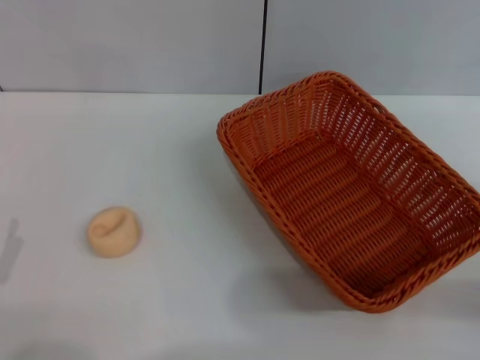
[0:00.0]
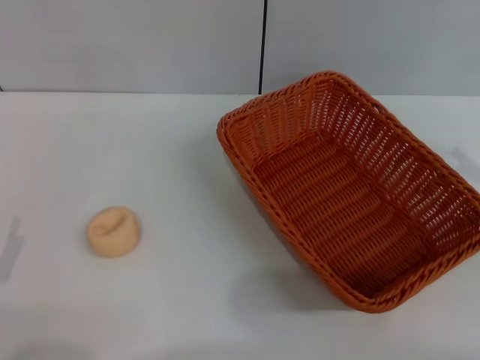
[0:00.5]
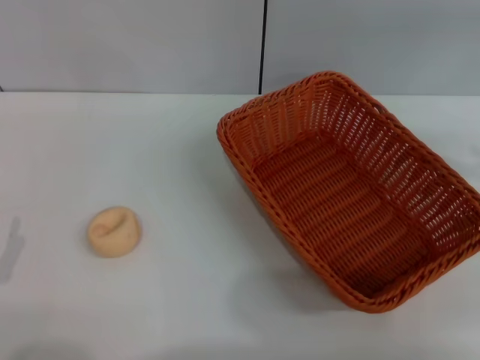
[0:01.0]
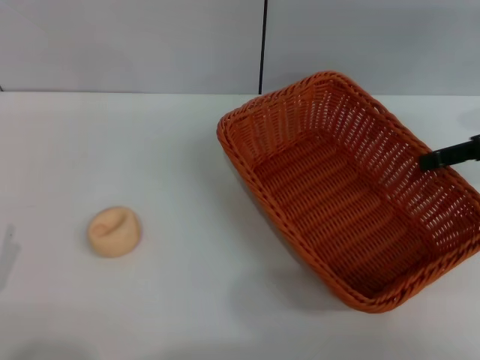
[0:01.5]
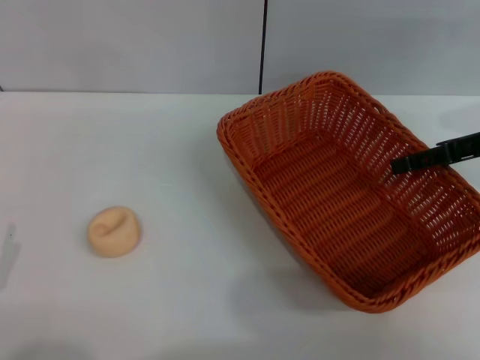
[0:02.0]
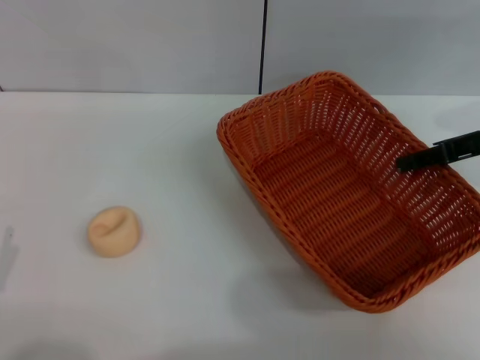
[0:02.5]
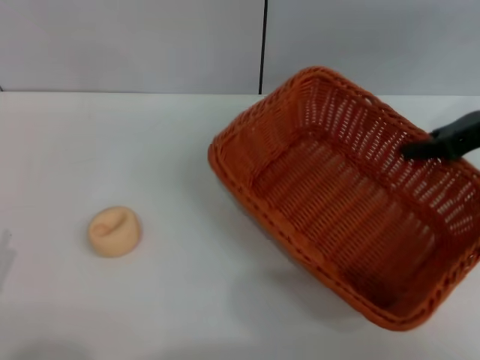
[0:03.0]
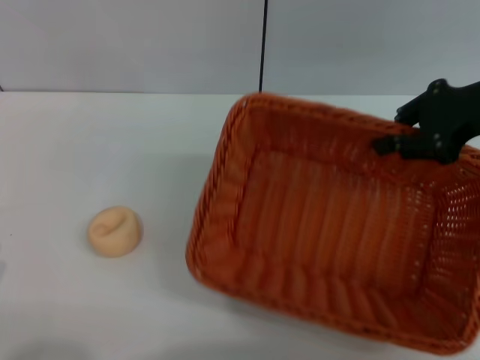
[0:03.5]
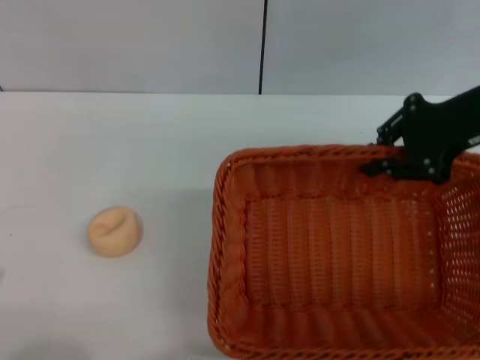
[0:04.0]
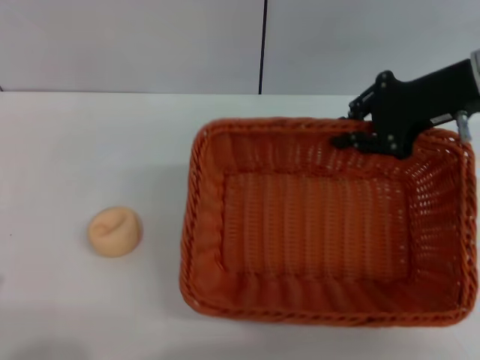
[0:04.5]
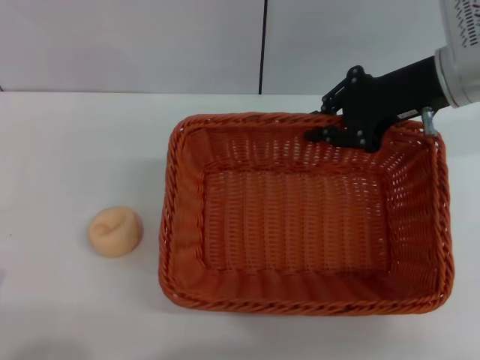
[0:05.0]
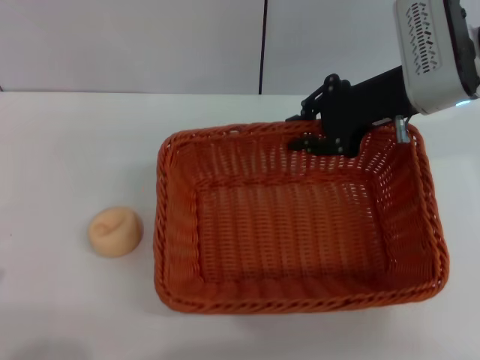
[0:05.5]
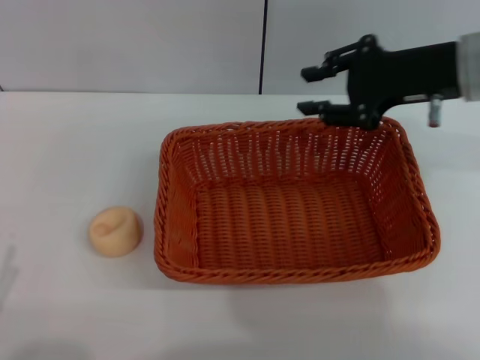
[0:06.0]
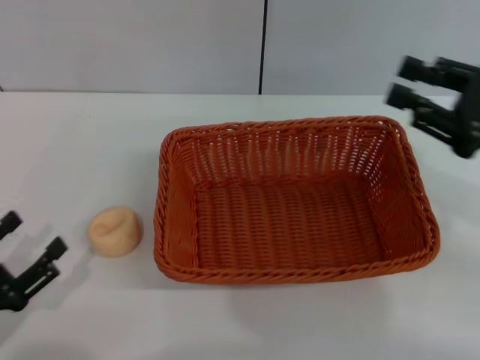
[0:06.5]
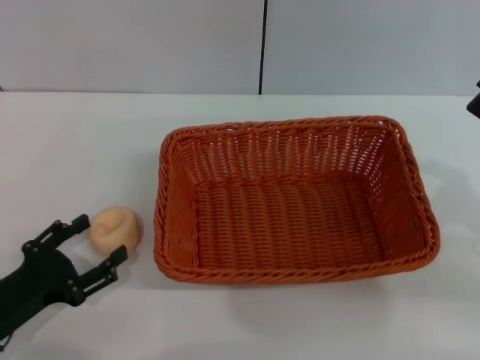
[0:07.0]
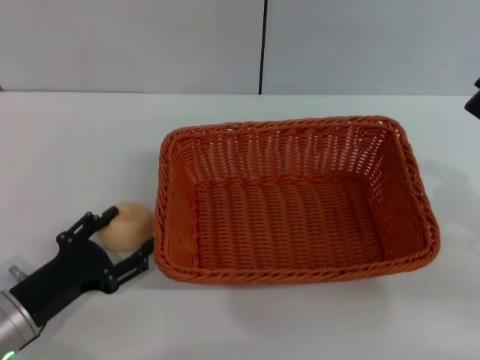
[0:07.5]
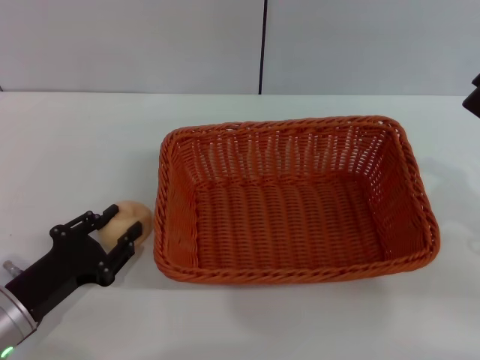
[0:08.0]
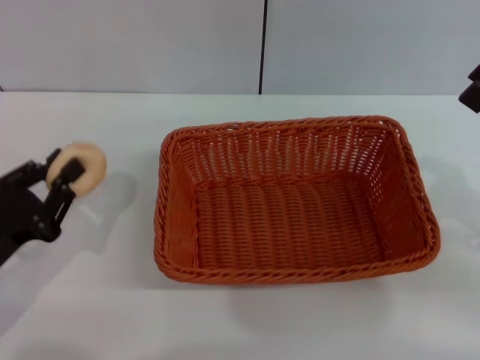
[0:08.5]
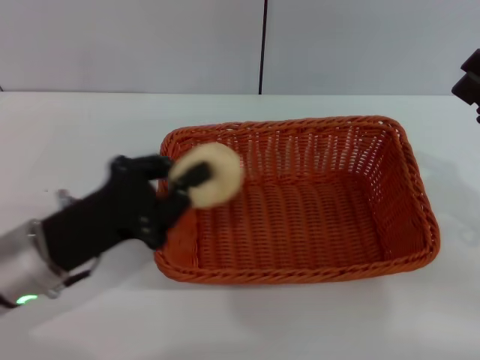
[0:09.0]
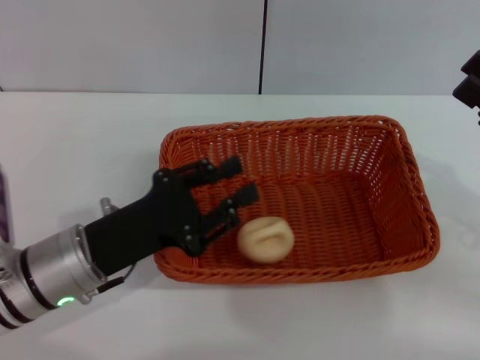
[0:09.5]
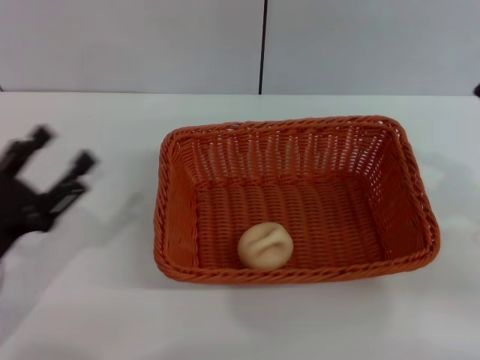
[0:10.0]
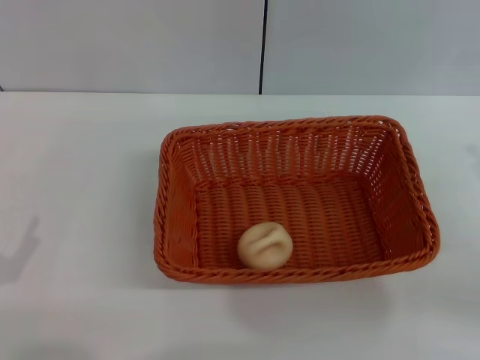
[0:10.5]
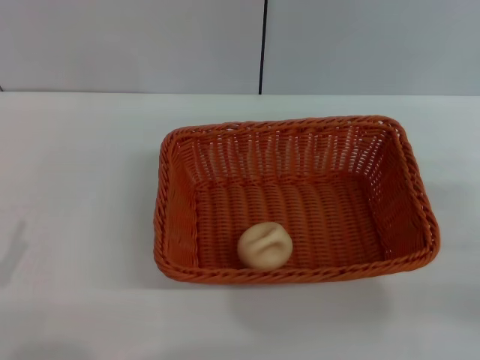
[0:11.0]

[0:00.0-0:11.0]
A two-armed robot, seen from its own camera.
Step, 0:00.0 to 0:05.5: Move the basket to the center of view with the right gripper.
Step, 0:06.0 to 0:08.5: Pick up the egg yolk pastry with the left gripper.
Step, 0:09.0 to 0:09.5: Place the egg yolk pastry into the basket with the left gripper.
0:00.0 to 0:02.0: The right gripper goes approximately 20 cm forward and upward.
0:02.0 to 0:03.5: The right gripper travels upward by roughly 5 cm, and closes.
0:03.5 to 0:05.5: The right gripper heads to the left, covering roughly 10 cm.
0:05.5 to 0:07.5: The left gripper heads forward and to the right, covering roughly 15 cm; the right gripper heads backward and to the right, covering roughly 20 cm.
0:07.5 to 0:09.0: The left gripper is displaced upward by about 5 cm, and closes its fingers.
0:09.0 to 0:11.0: The left gripper moves backward and to the left, roughly 15 cm, and opens up. Meanwhile the right gripper travels downward by approximately 5 cm.

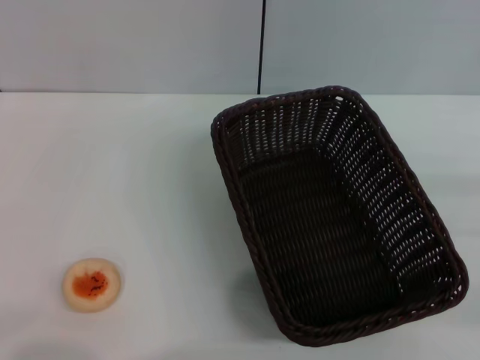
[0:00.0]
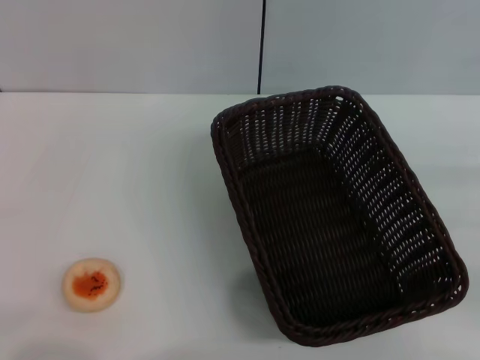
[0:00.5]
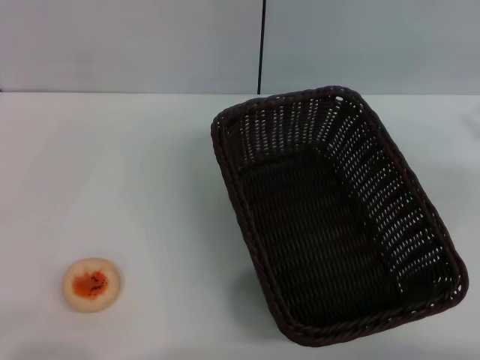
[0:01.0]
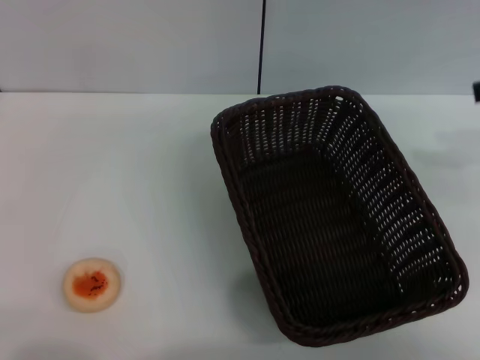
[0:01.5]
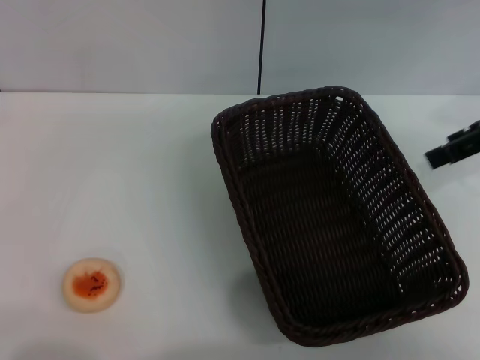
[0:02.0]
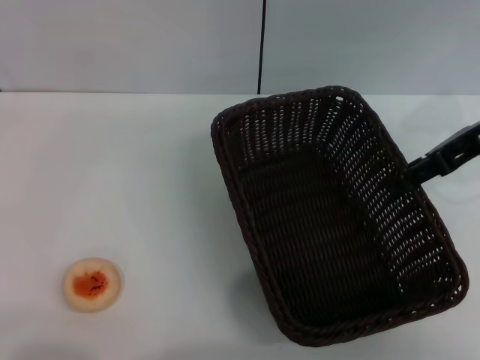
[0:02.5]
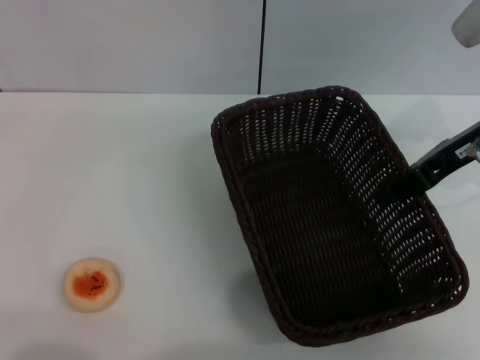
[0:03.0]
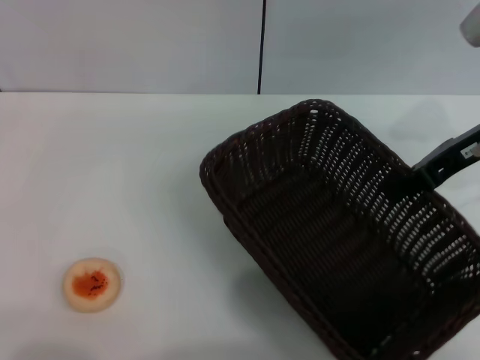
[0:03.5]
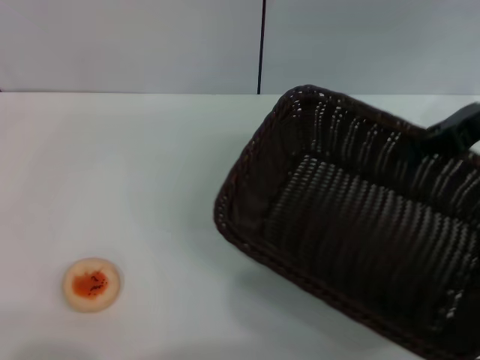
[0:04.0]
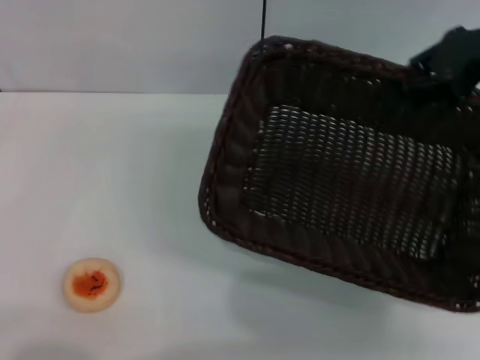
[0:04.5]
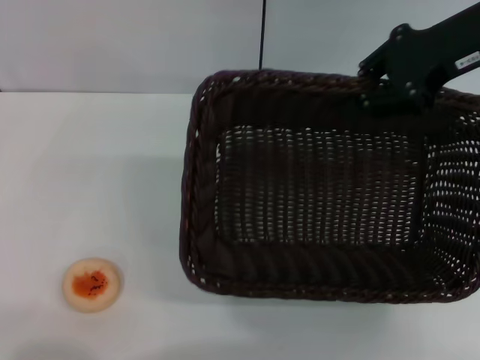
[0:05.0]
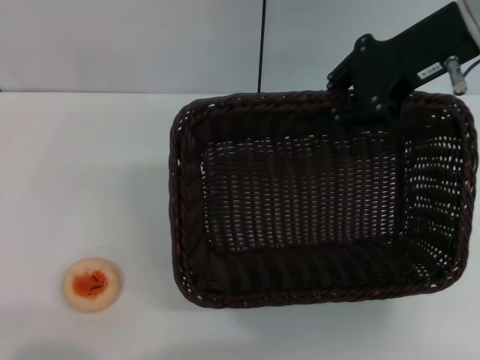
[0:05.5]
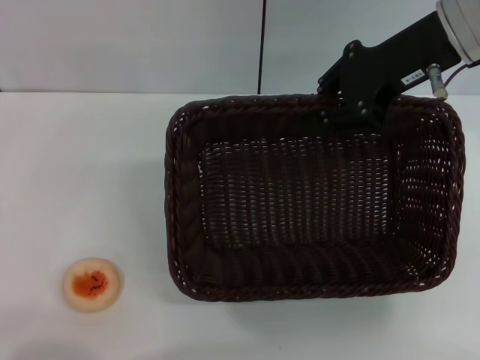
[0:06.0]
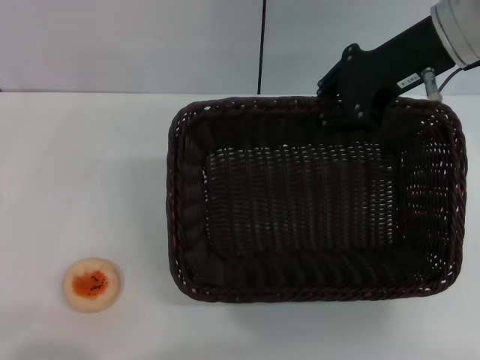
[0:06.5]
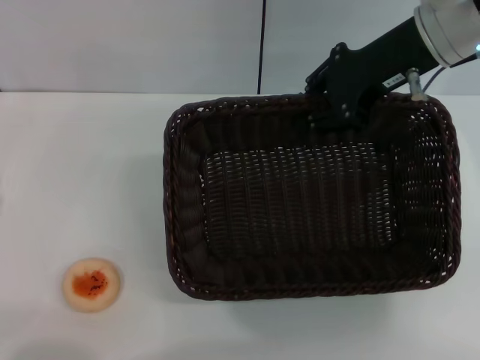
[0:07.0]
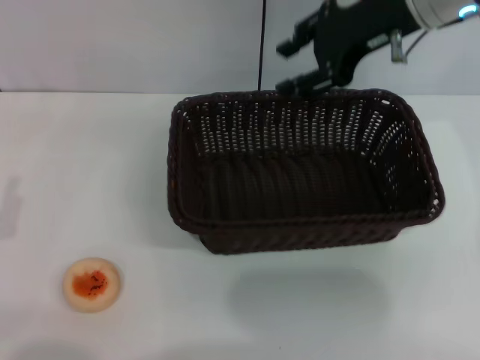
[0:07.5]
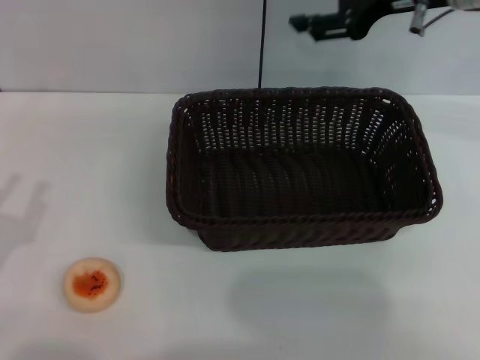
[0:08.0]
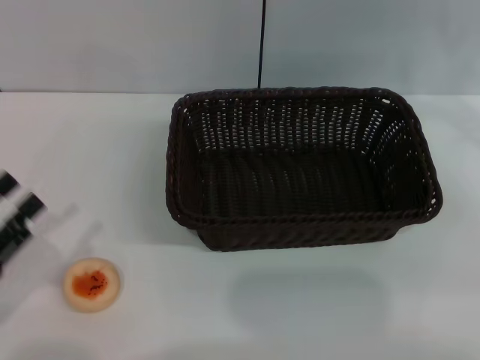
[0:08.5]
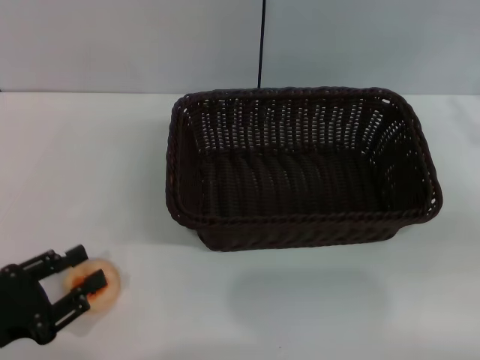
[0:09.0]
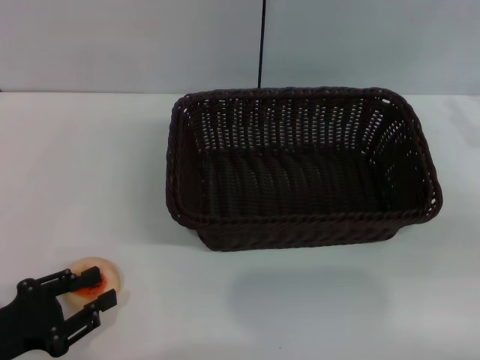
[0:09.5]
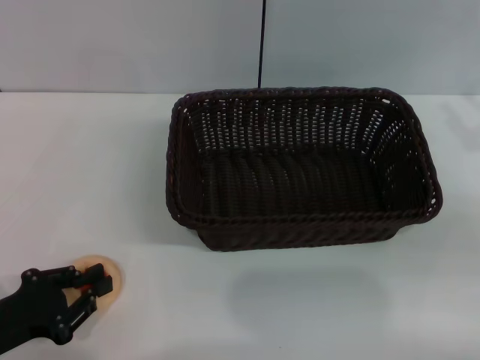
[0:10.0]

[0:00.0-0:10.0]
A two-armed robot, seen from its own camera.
Step, 0:00.0 to 0:07.5: Move the basket to the center of view with the right gripper.
0:00.0 to 0:02.0: The right gripper is displaced forward, upward and to the left by some 25 cm, and opens its fingers.
0:02.0 to 0:04.0: The right gripper closes up.
0:04.0 to 0:06.0: The right gripper is displaced to the left by roughly 10 cm.
0:06.0 to 0:08.0: The right gripper opens.
0:08.0 to 0:10.0: The left gripper changes place by about 5 cm; the right gripper is displaced to the right, backward and downward by about 25 cm.

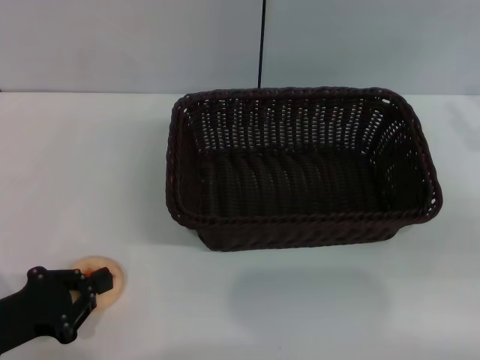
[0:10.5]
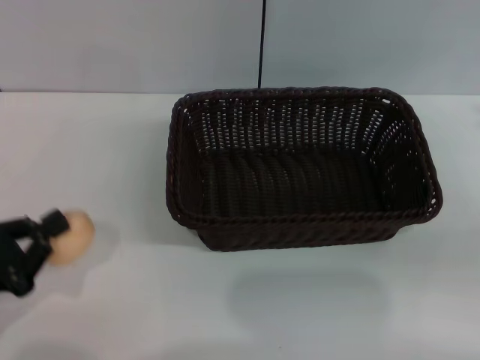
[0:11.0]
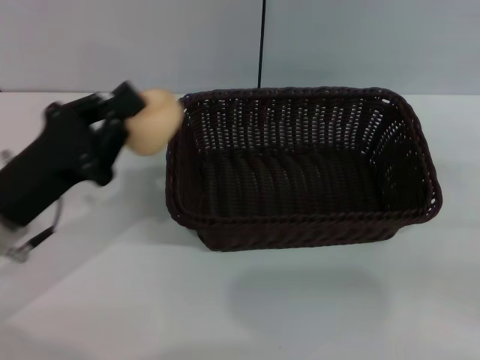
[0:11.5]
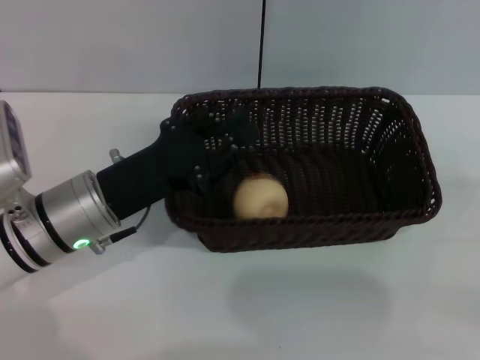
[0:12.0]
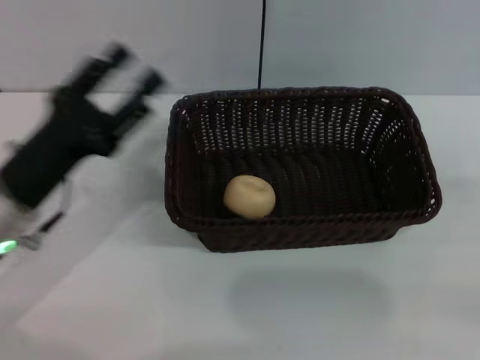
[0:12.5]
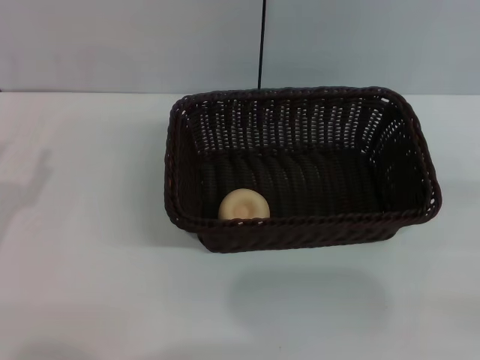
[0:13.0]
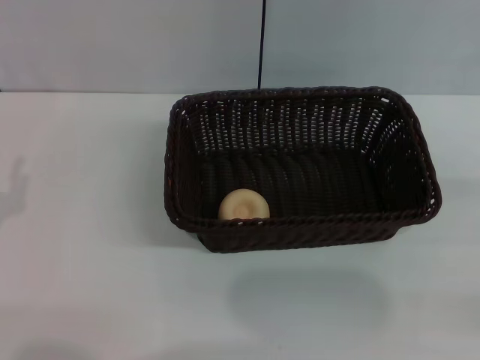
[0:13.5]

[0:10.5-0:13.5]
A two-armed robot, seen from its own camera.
Step, 0:11.5 to 0:12.0: Place the egg yolk pastry into the basket with the left gripper.
0:10.5 to 0:12.0: The right gripper is displaced backward and to the right by approximately 10 cm, while the left gripper shifts approximately 20 cm to the right, forward and upward.
0:12.0 to 0:13.5: The left gripper moves to the left and backward, approximately 20 cm, and opens up.
